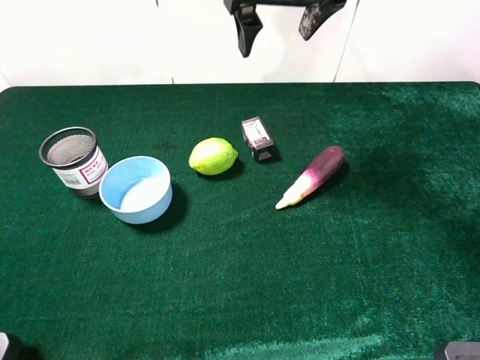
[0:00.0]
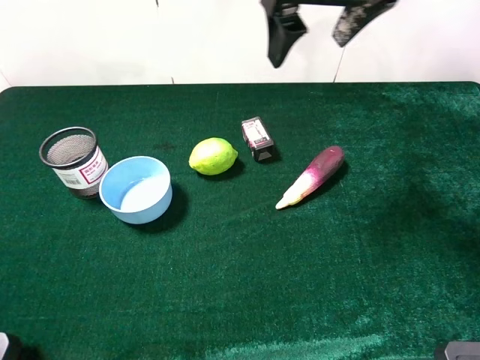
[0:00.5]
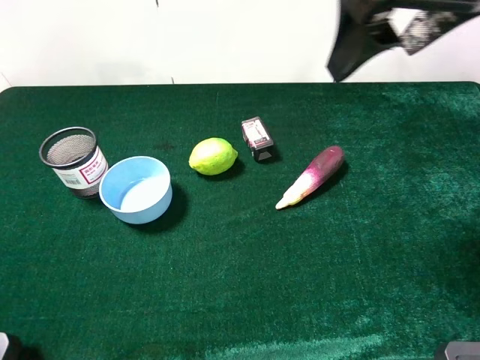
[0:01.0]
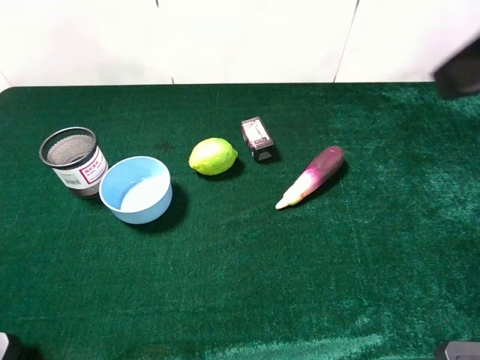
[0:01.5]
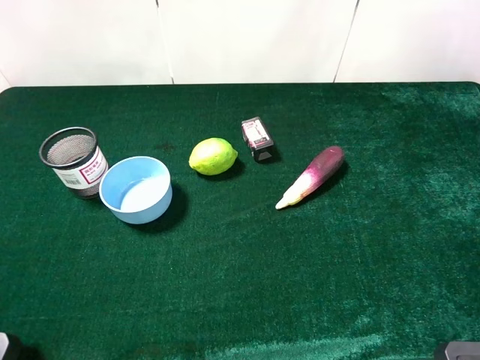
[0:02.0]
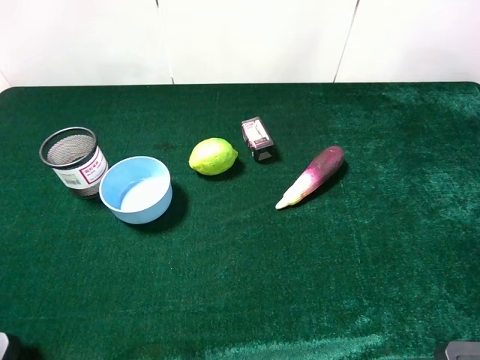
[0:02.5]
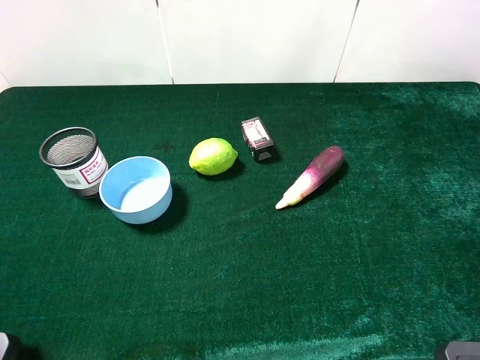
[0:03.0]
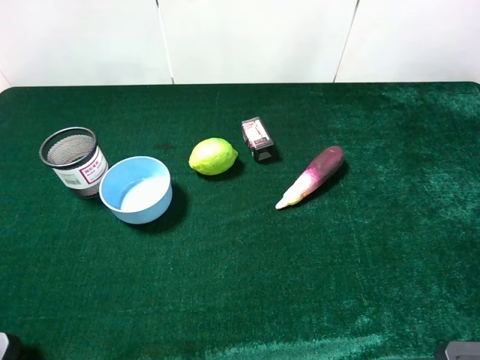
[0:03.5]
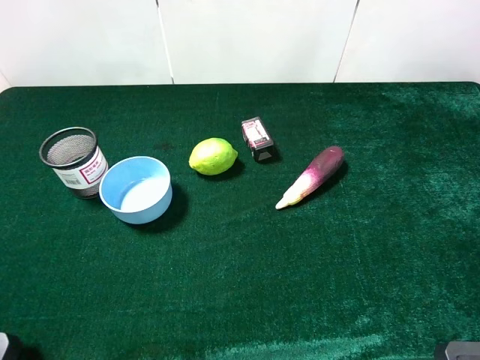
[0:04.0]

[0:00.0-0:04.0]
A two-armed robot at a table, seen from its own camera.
Task of the whole recording: the gripper move the object.
0:00.0 to 0:02.0: The right gripper moves backward and to the right, some 40 cm.

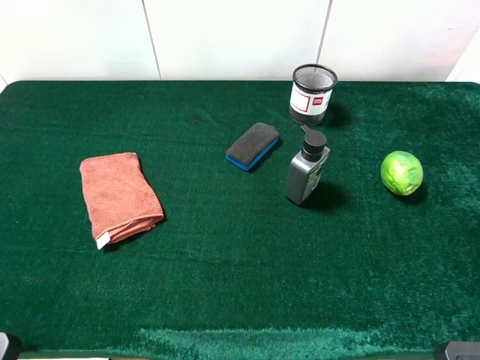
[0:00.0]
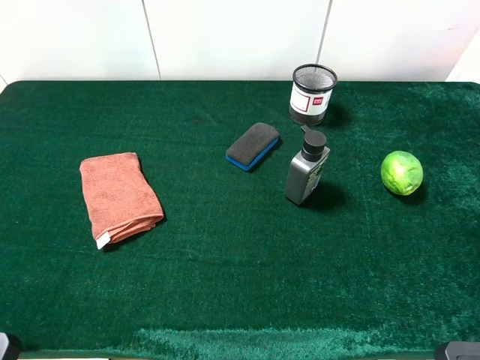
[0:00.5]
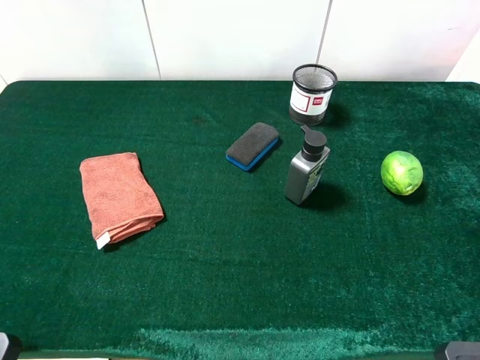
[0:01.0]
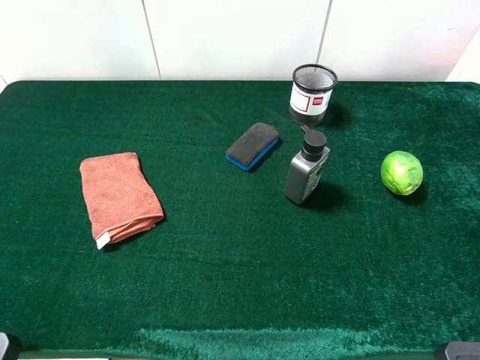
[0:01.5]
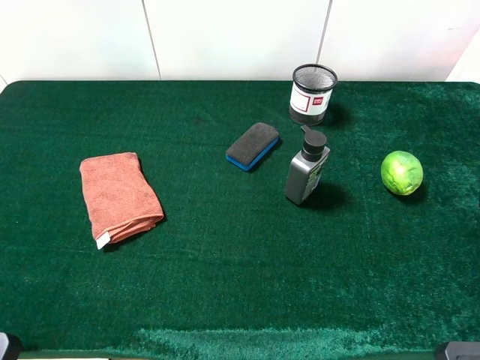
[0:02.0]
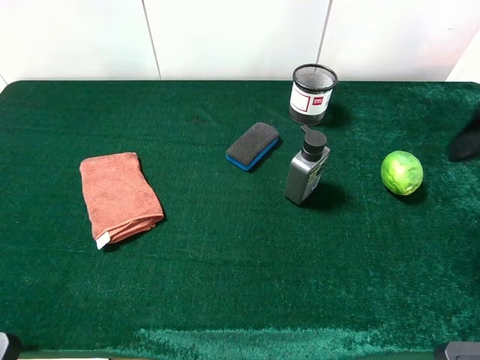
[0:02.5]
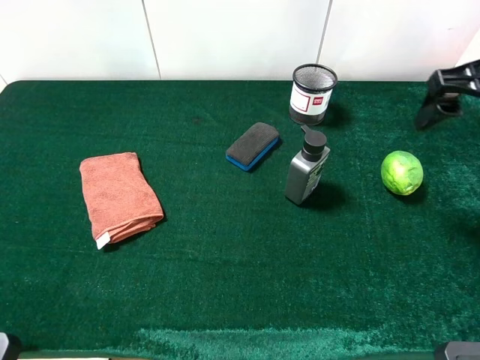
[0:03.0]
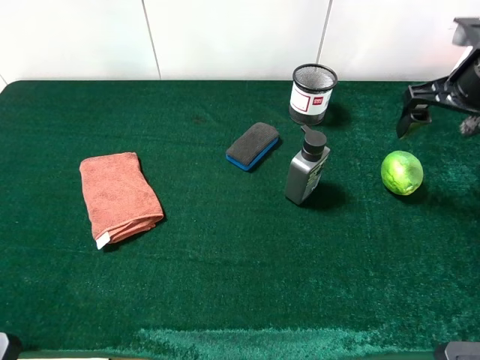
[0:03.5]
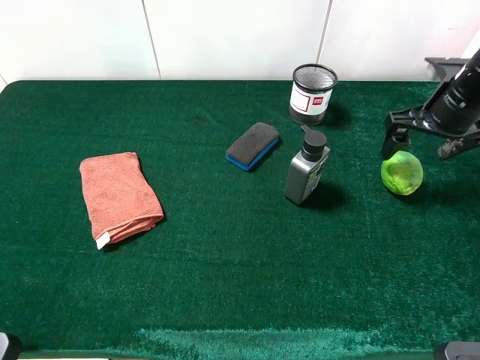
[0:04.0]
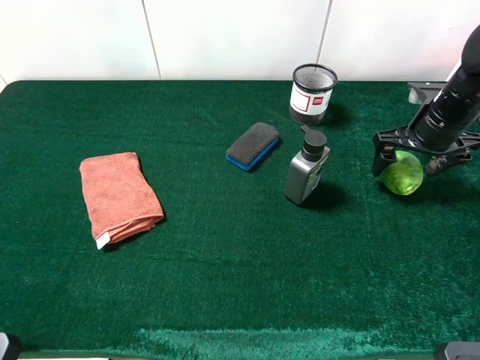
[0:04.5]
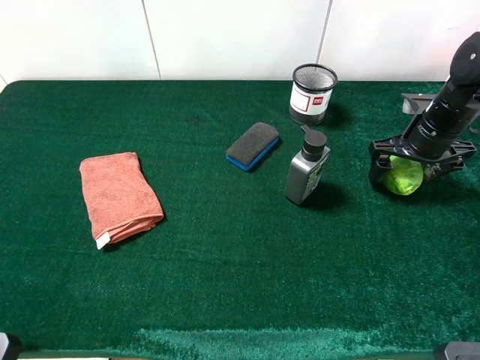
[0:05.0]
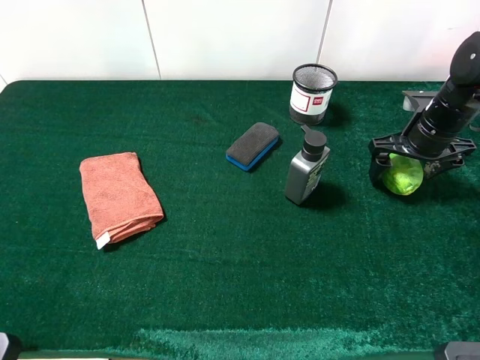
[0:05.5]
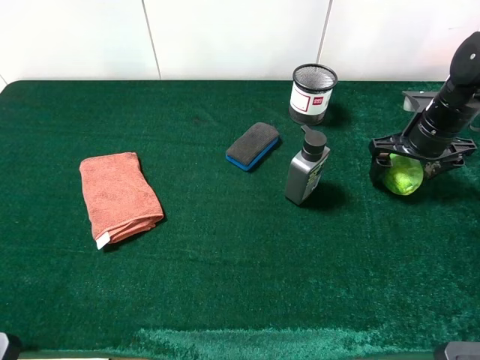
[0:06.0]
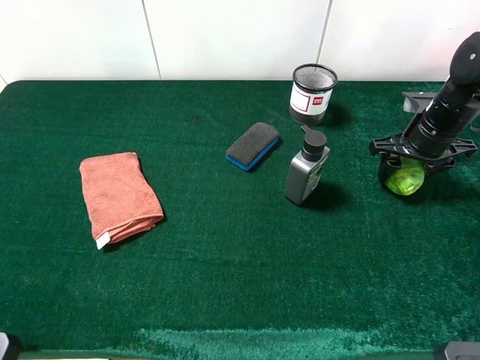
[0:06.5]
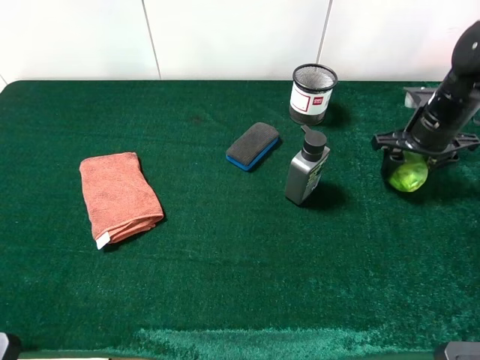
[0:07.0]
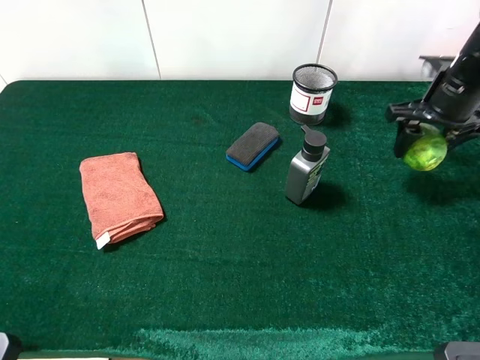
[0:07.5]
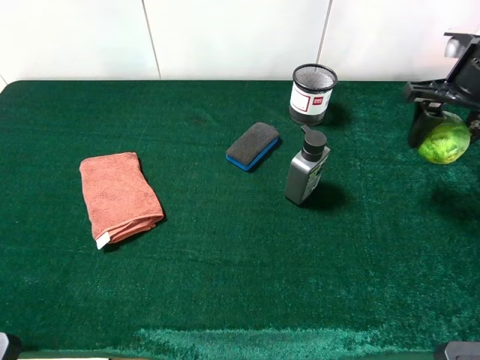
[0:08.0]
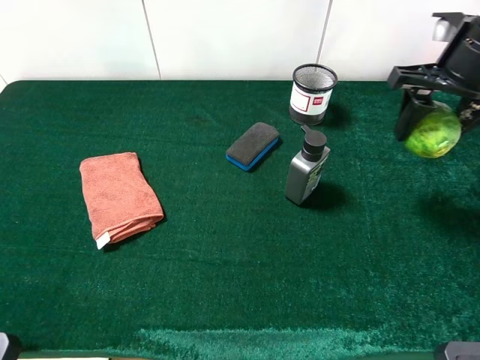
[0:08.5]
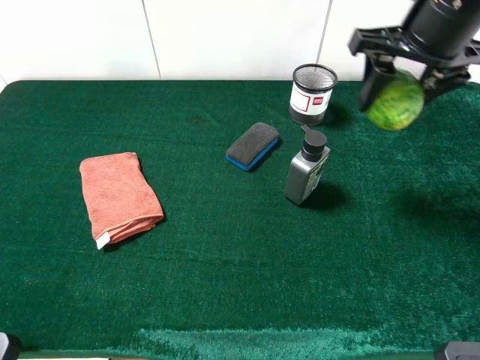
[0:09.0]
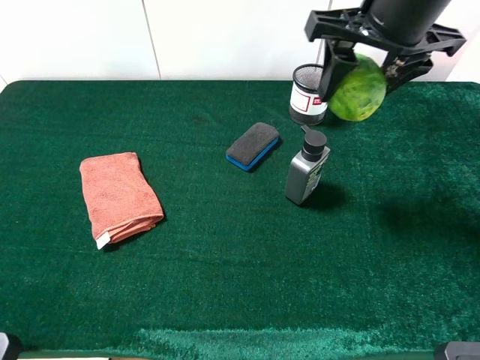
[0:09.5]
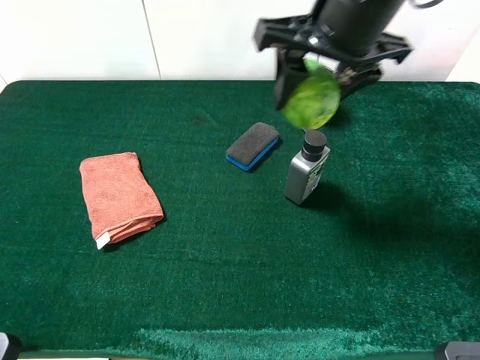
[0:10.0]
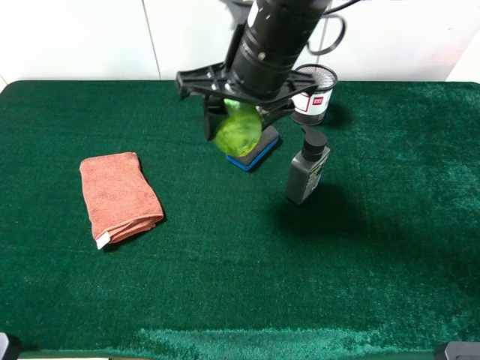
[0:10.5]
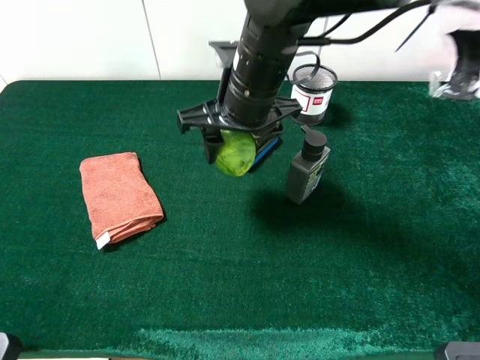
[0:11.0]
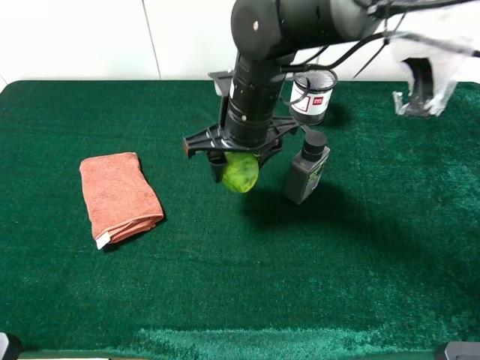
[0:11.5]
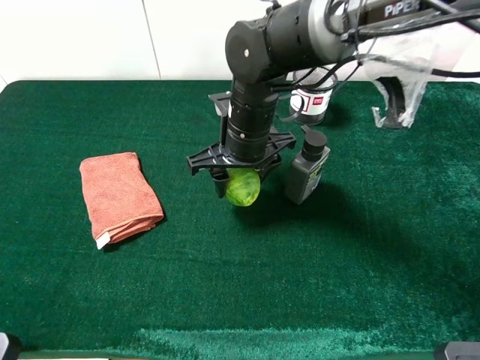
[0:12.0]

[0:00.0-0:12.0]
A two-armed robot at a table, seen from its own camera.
Task of the whole recording: the gripper move the object.
Step, 0:00.0 to 0:06.0: Grasp the green lemon with the right gripper.
0:02.0 to 0:04.0: The right gripper travels forward and downward by approximately 25 cm.
0:04.0 to 0:06.0: The right gripper is displaced downward by roughly 5 cm.
0:06.0 to 0:08.0: The right gripper goes some 10 cm upward, and closes its fingers.
0:08.0 to 0:10.0: The right gripper goes roughly 20 cm to the left.
0:10.0 to 0:12.0: The right gripper moves downward and to the left, some 20 cm.

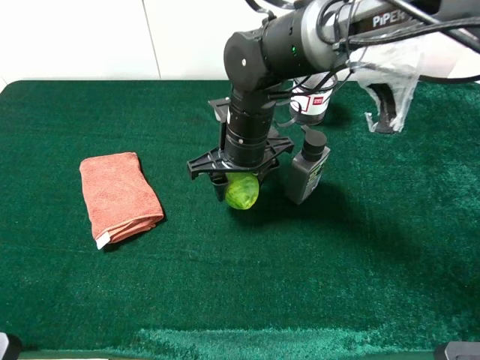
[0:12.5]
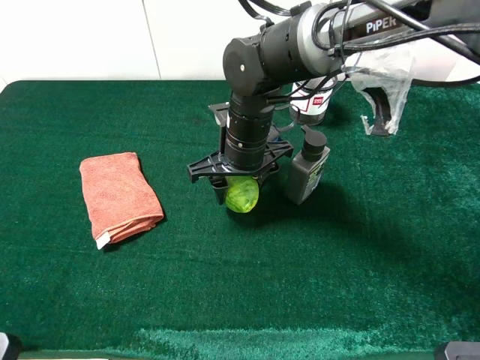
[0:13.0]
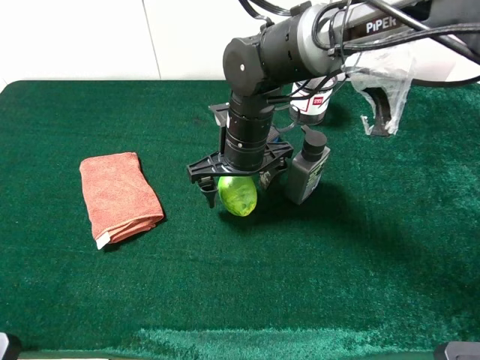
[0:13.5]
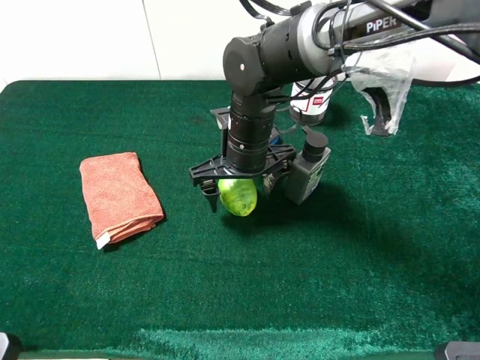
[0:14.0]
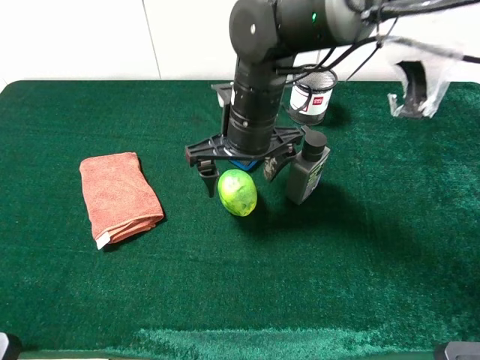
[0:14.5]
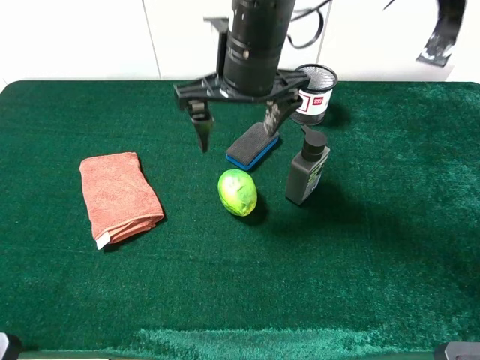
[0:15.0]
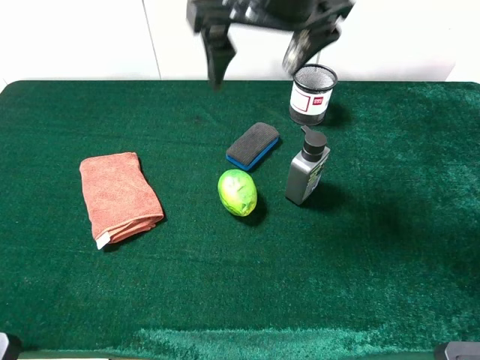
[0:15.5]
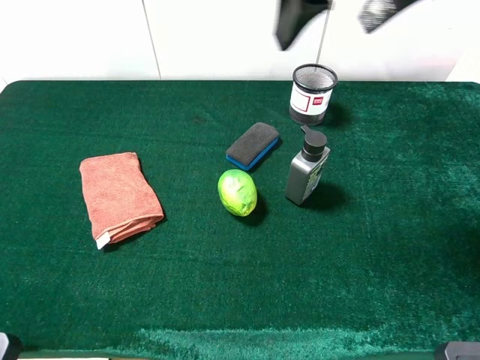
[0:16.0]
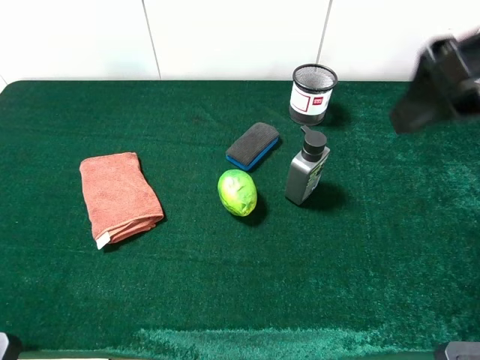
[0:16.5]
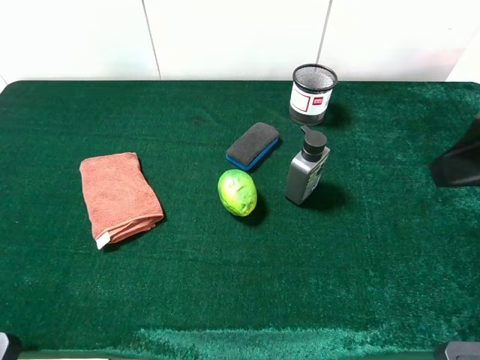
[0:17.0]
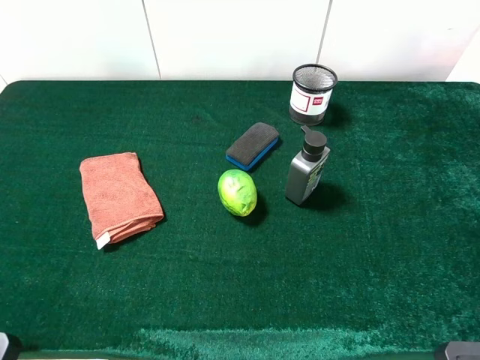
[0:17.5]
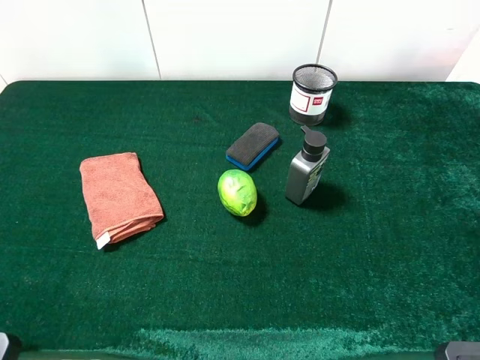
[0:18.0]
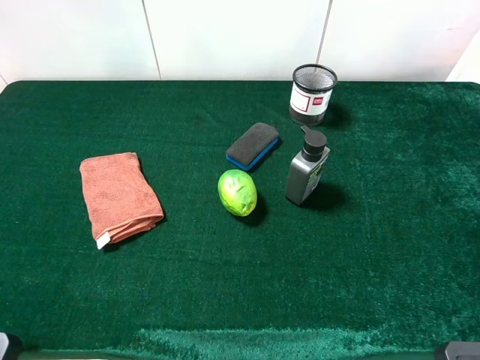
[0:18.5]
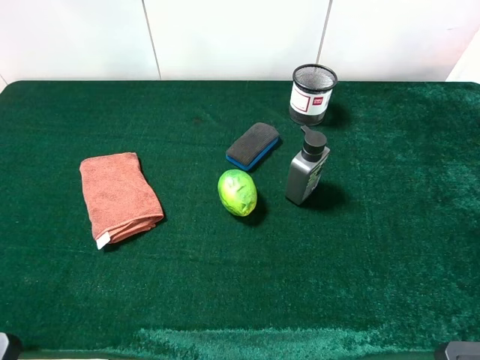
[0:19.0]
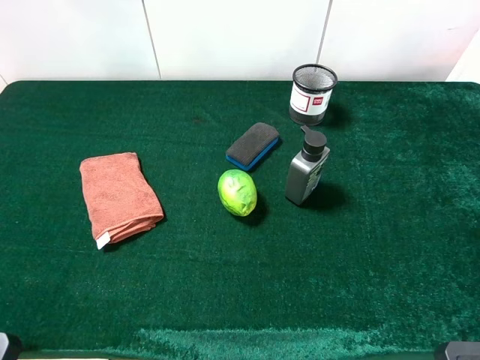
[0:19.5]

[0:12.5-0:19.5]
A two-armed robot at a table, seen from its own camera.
Task of the whole recording: the gripper move the object.
0:12.5 to 0:14.5: The right gripper opens its fingers.
0:14.5 to 0:16.0: The right gripper shifts some 25 cm upward and to the right.
0:16.0 to 0:17.5: The right gripper is displaced to the right and backward by some 20 cm.

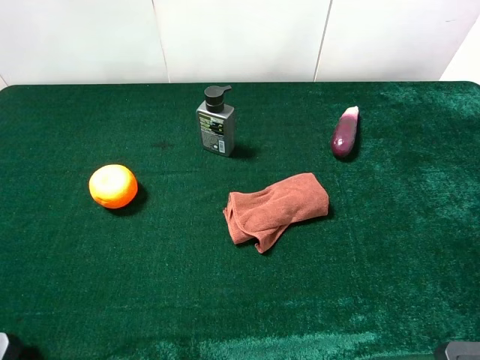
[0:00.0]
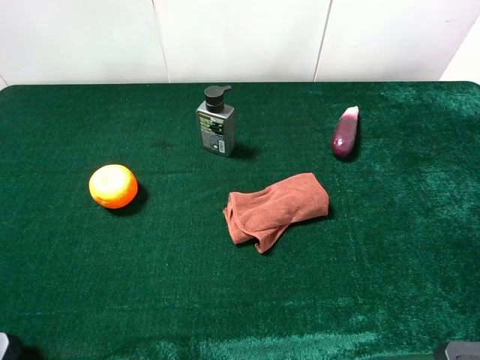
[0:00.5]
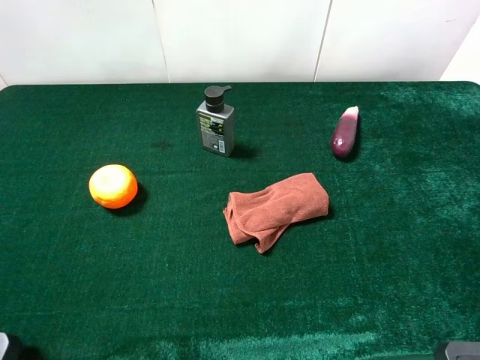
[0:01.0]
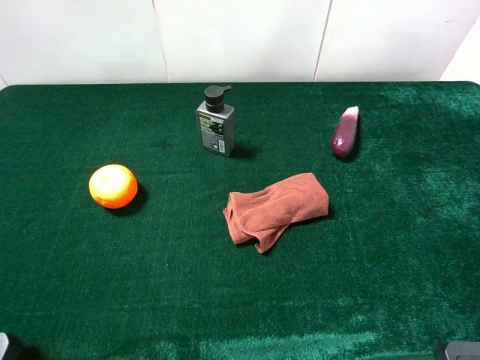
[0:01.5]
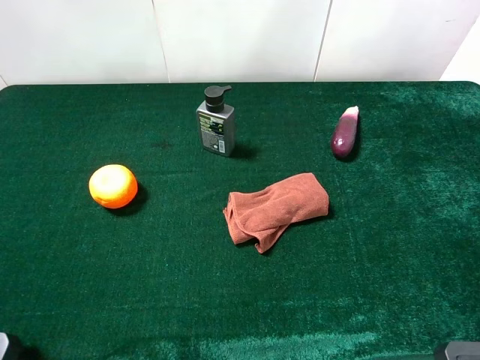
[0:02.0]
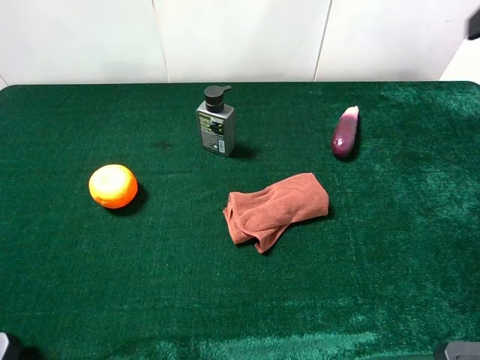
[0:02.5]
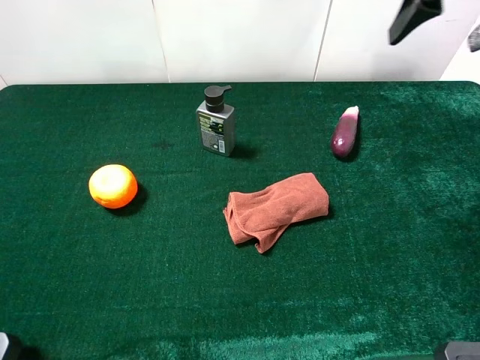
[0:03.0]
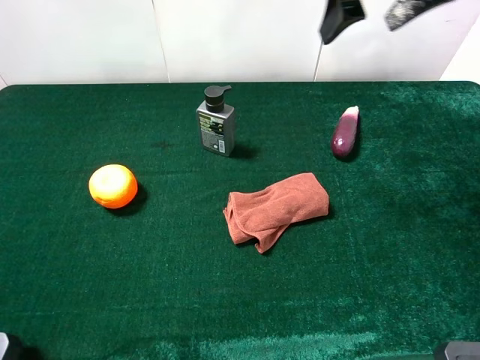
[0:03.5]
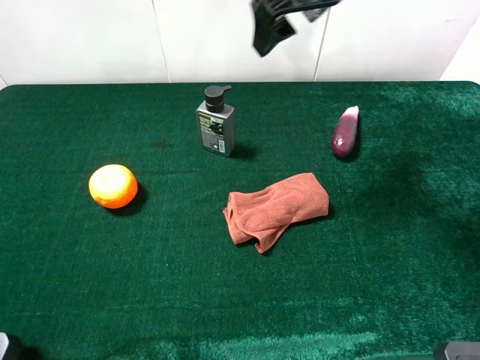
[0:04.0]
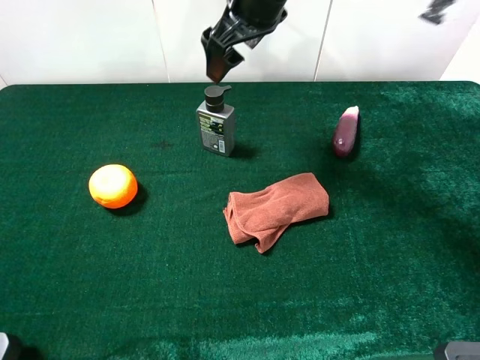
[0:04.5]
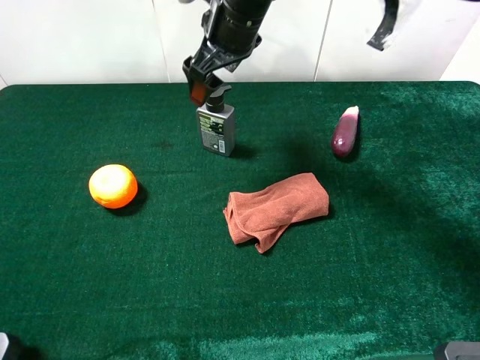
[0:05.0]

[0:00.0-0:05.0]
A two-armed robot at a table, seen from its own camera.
Task of the whole recording: the gripper move the object.
0:02.5 to 0:05.0: The right gripper heads to the left, forward and downward, covering about 35 cm.
